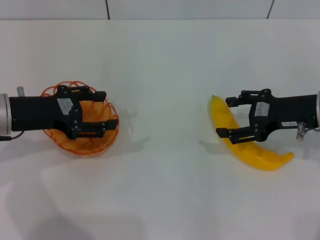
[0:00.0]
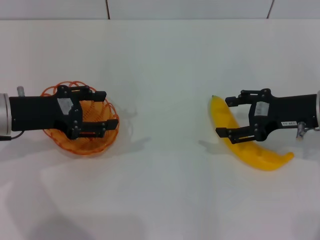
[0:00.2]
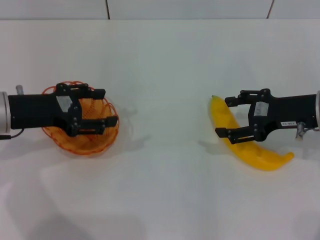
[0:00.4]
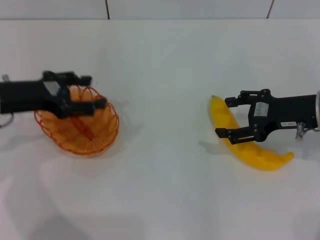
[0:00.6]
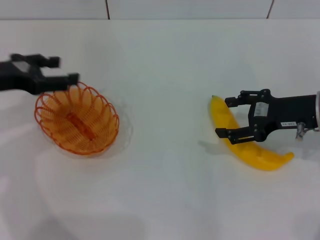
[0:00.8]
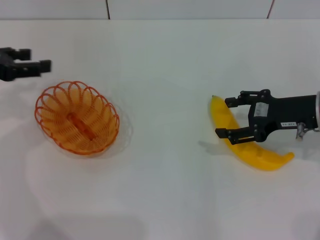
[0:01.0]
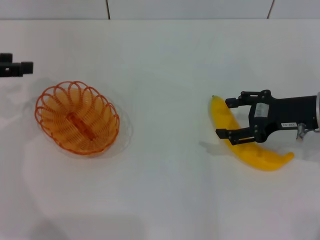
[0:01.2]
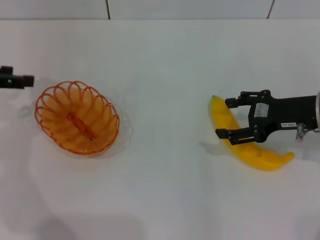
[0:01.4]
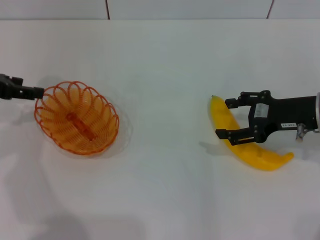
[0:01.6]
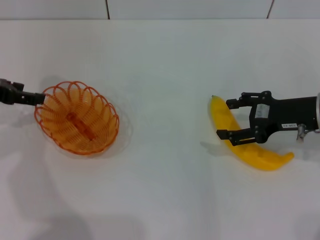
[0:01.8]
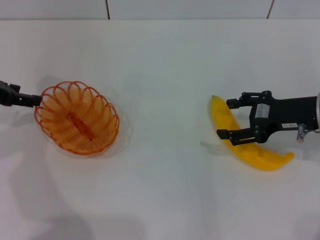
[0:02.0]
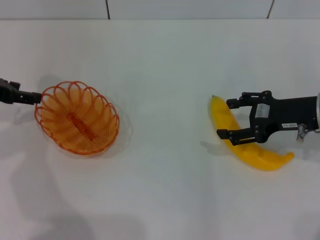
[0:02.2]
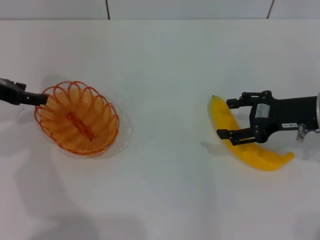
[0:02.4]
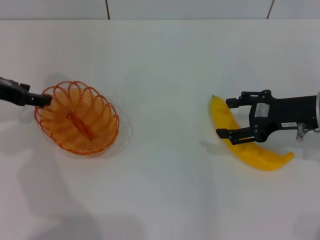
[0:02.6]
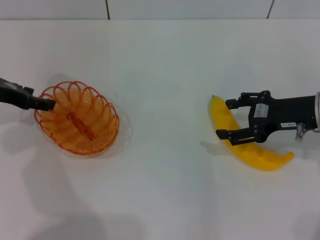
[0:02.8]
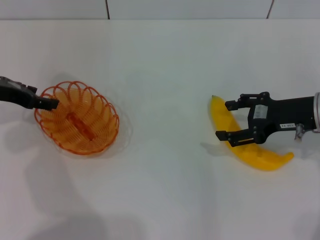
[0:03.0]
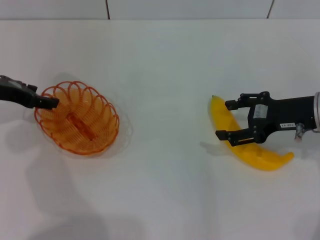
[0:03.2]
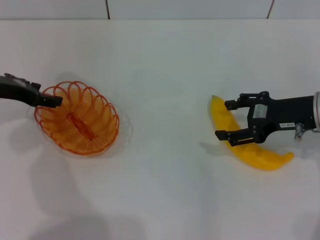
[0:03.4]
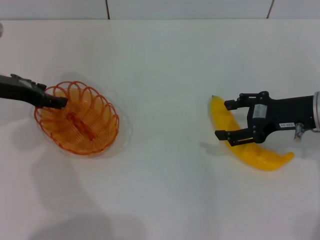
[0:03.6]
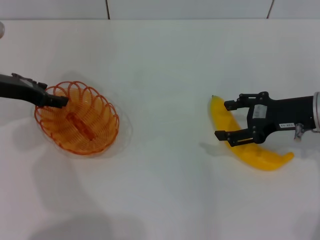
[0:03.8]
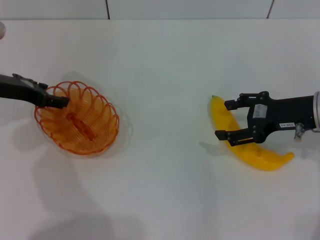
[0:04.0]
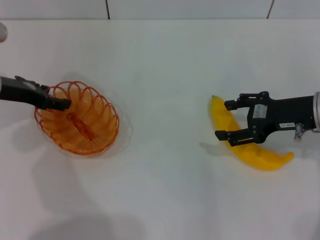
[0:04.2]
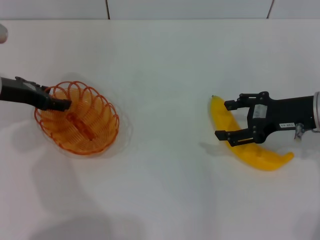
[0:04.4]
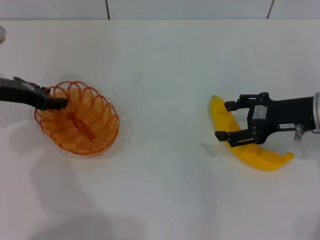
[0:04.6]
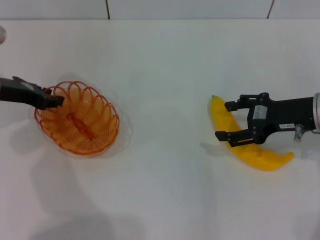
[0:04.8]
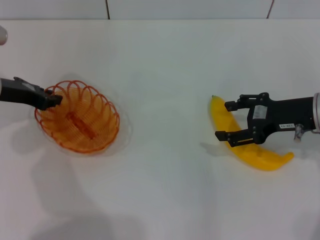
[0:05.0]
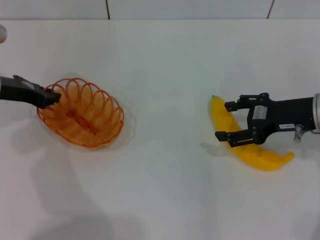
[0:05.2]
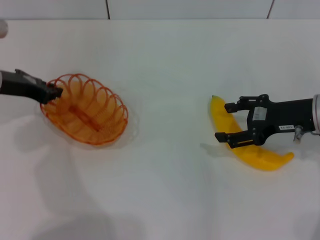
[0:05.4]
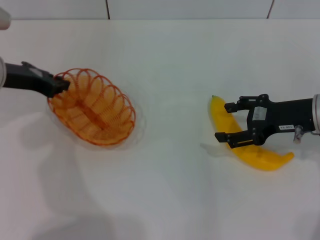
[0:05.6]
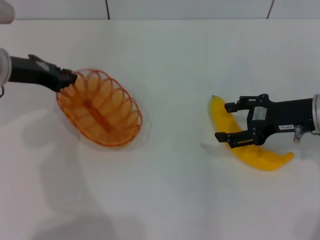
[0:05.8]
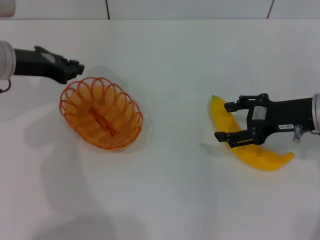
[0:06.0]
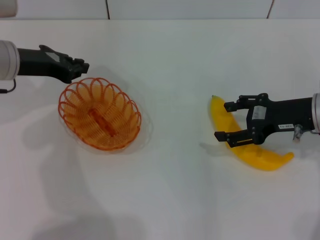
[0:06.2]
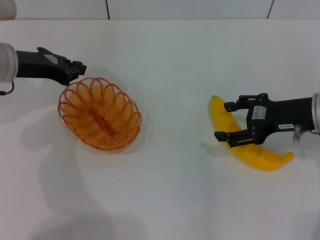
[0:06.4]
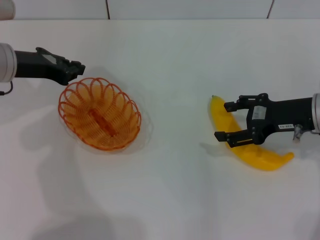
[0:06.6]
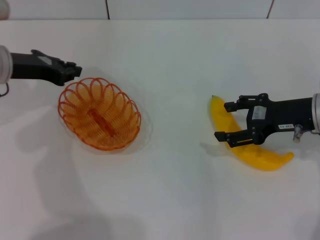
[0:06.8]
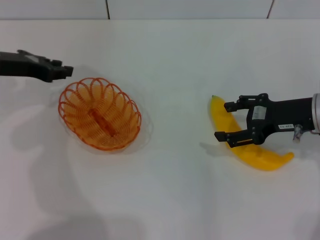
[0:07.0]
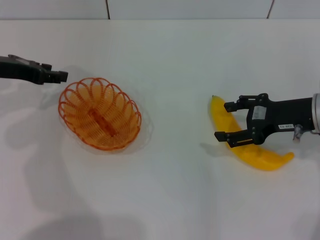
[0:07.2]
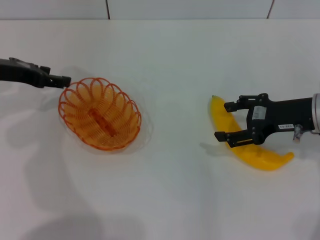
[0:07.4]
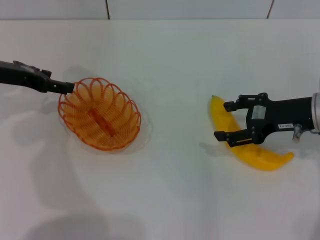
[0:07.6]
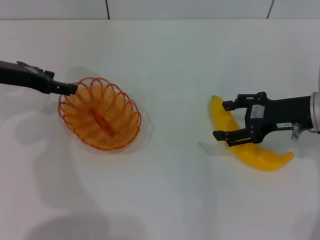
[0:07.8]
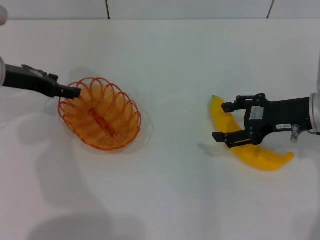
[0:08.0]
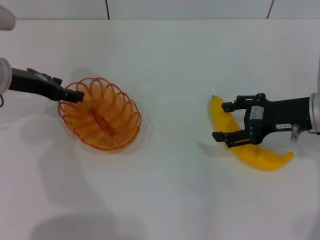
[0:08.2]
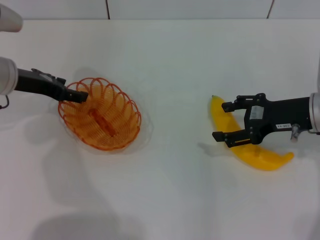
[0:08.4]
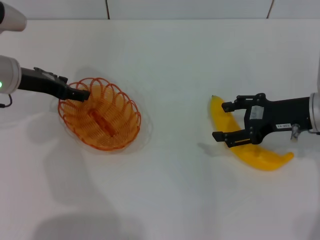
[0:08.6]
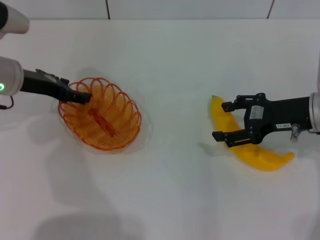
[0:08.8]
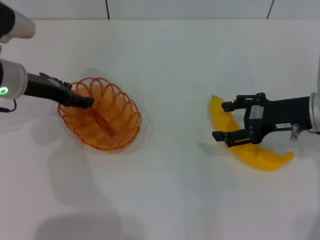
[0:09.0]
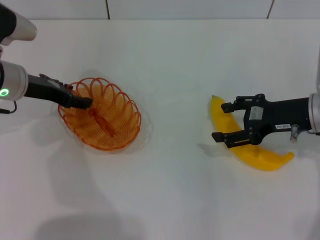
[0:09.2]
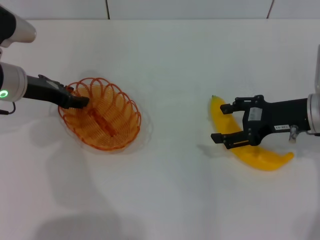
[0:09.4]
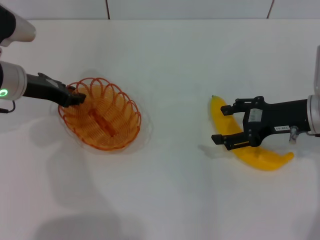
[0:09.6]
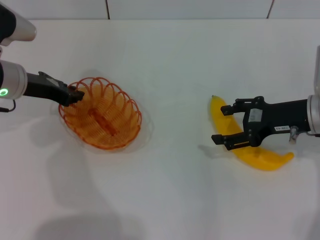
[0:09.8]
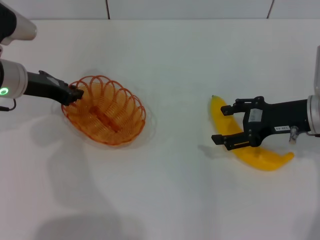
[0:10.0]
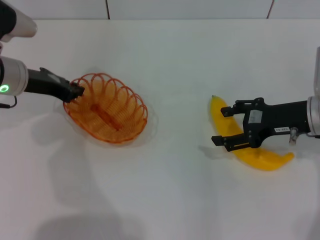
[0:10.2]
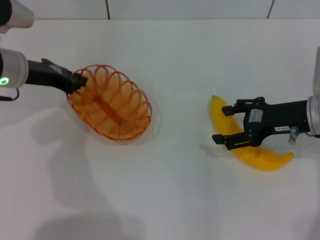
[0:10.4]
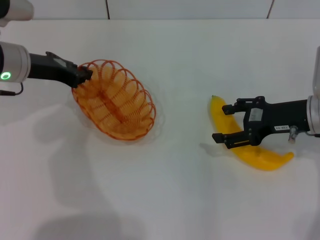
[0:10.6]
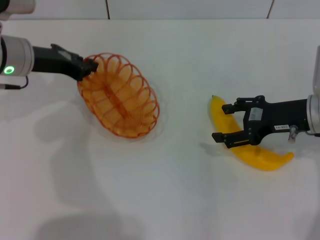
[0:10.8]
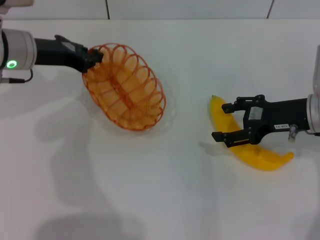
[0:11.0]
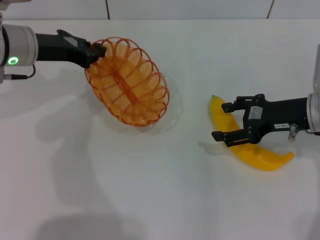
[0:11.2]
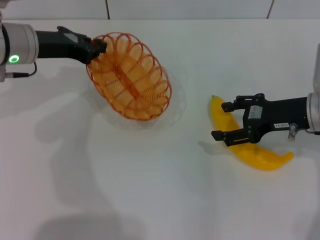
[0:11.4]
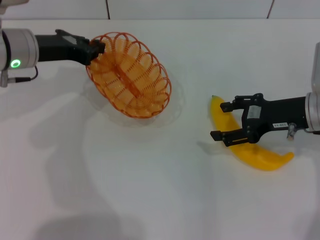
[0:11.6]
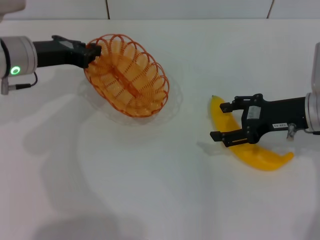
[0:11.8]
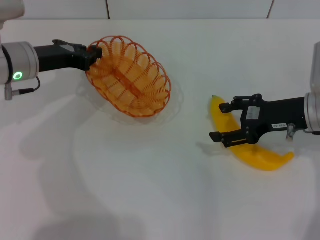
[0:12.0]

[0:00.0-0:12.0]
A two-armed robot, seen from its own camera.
0:00.0 to 0:01.6: The left gripper shifts about 10 cm to the left and upward.
0:01.6 to 0:03.0: There are only small adjustments of the grippers.
0:03.0 to 0:04.4: The grippers make only small movements.
0:04.4 to 0:06.0: The left gripper closes.
0:06.0 to 0:07.6: The left gripper opens its fingers.
0:07.6 to 0:09.0: The grippers make only small movements.
0:09.0 to 0:10.4: The left gripper closes up.
0:10.4 to 0:12.0: There are only small adjustments of the grippers.

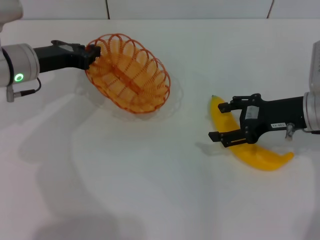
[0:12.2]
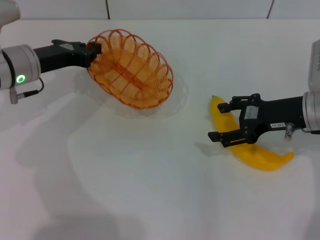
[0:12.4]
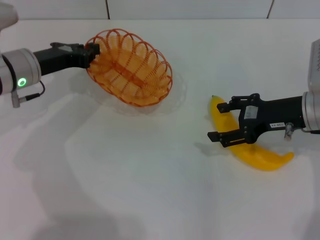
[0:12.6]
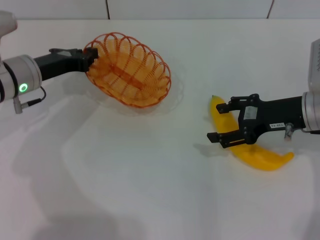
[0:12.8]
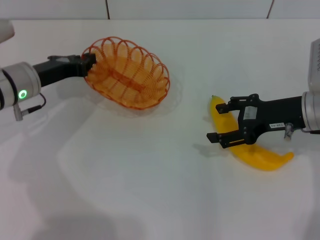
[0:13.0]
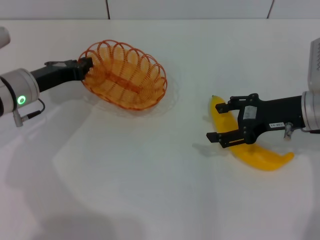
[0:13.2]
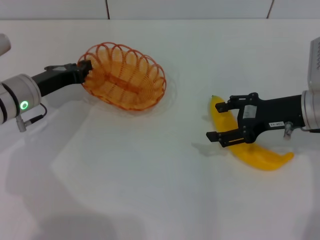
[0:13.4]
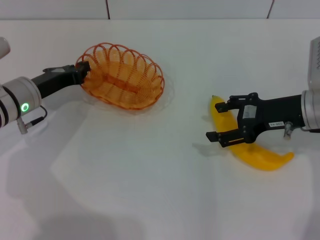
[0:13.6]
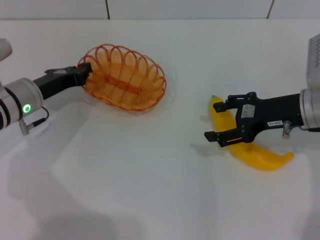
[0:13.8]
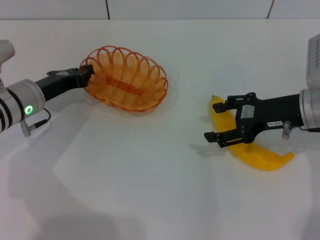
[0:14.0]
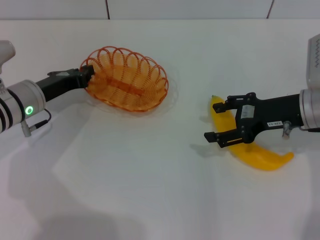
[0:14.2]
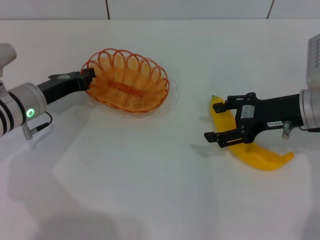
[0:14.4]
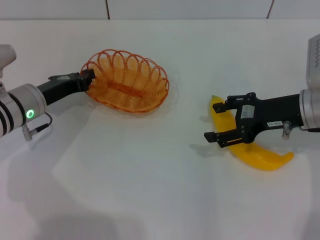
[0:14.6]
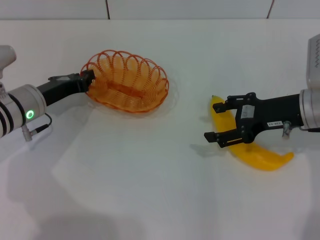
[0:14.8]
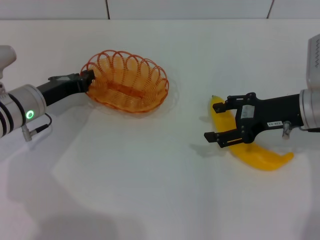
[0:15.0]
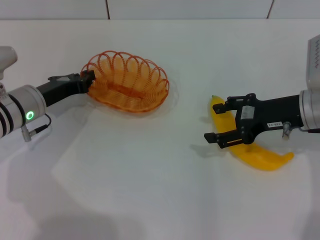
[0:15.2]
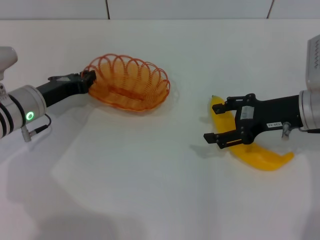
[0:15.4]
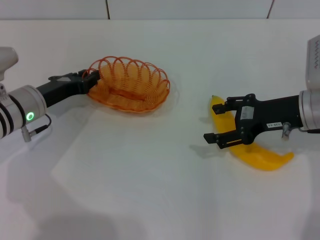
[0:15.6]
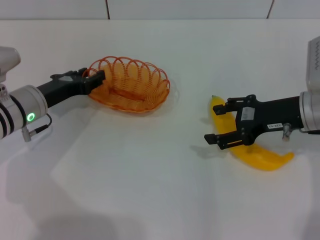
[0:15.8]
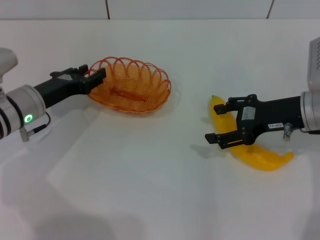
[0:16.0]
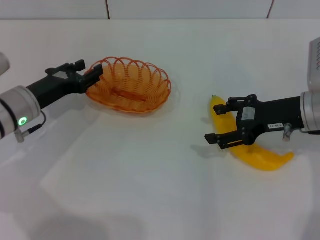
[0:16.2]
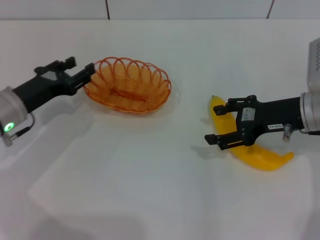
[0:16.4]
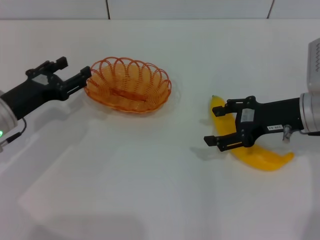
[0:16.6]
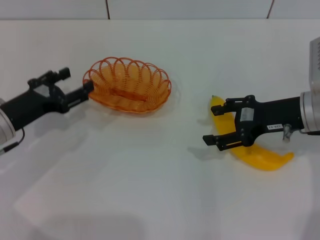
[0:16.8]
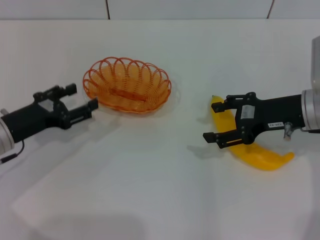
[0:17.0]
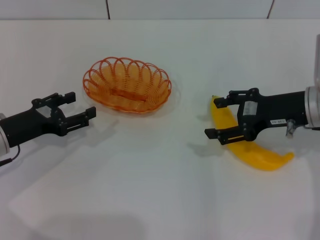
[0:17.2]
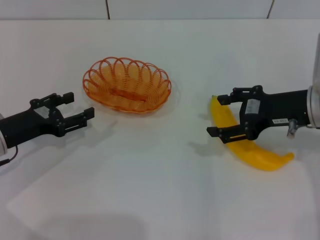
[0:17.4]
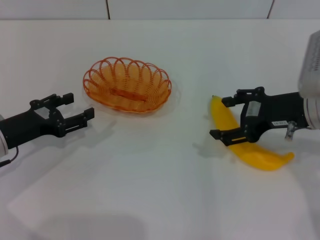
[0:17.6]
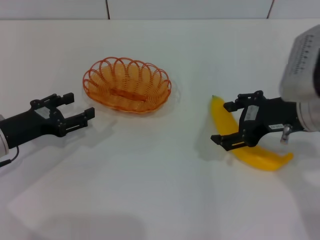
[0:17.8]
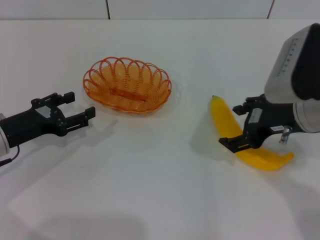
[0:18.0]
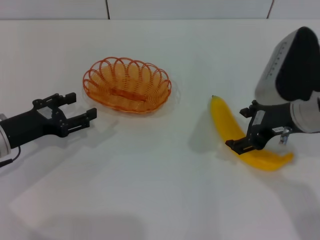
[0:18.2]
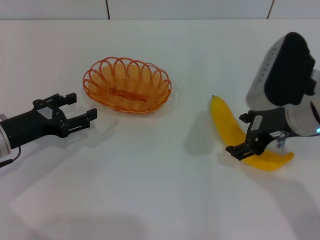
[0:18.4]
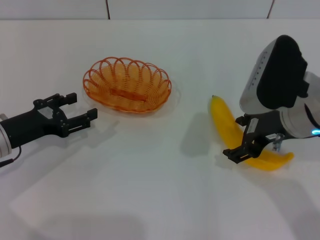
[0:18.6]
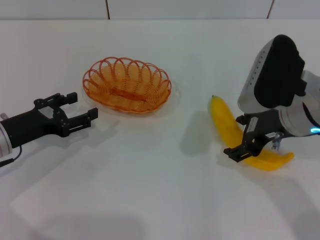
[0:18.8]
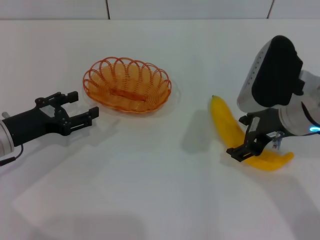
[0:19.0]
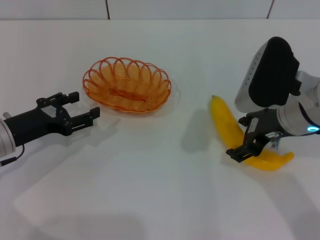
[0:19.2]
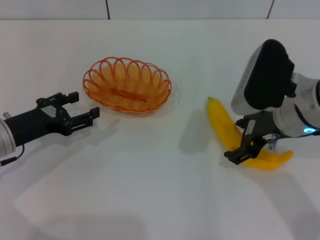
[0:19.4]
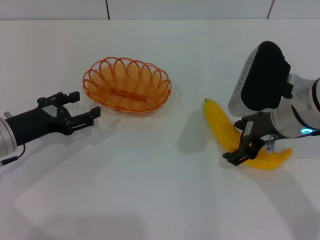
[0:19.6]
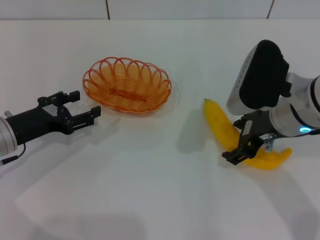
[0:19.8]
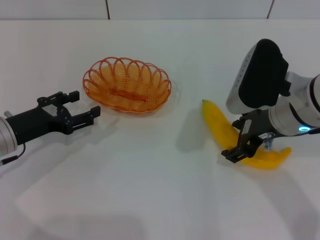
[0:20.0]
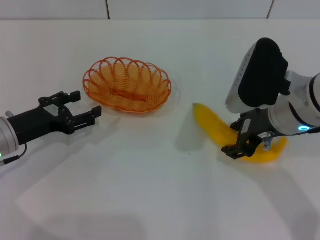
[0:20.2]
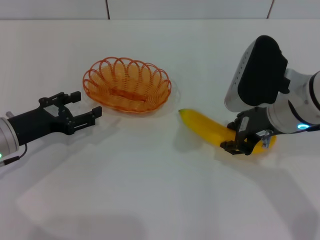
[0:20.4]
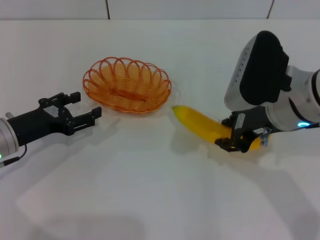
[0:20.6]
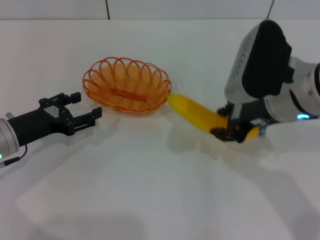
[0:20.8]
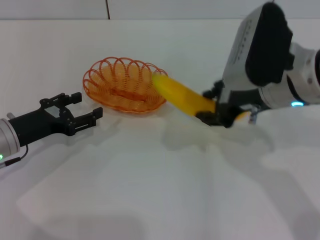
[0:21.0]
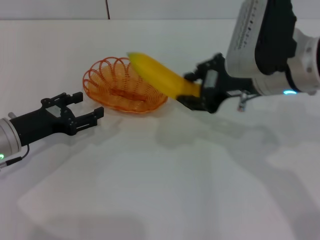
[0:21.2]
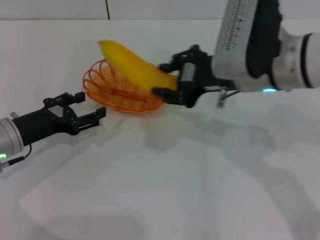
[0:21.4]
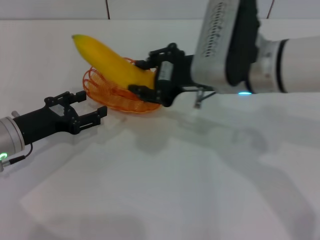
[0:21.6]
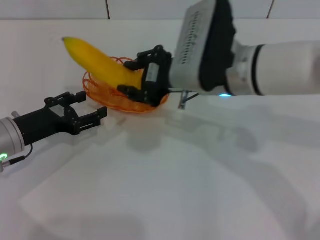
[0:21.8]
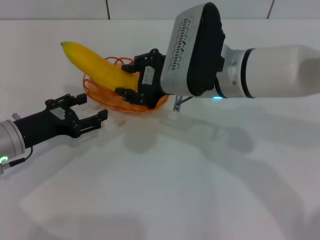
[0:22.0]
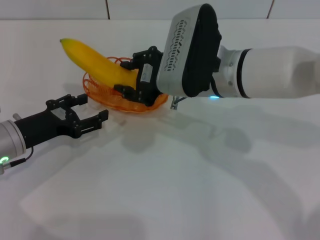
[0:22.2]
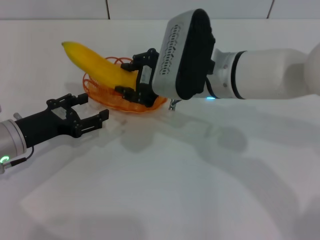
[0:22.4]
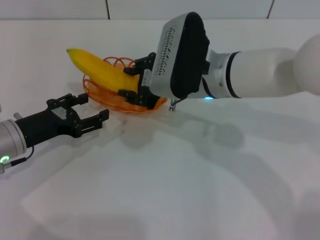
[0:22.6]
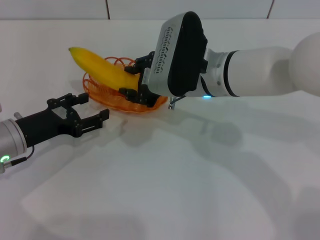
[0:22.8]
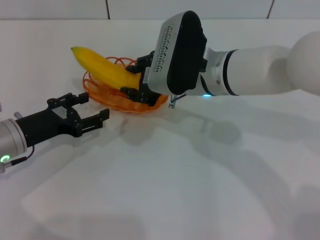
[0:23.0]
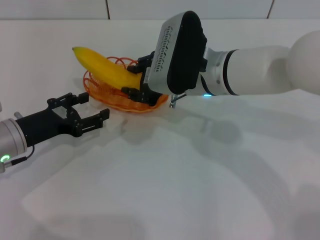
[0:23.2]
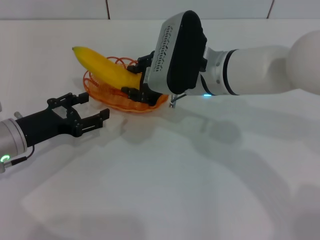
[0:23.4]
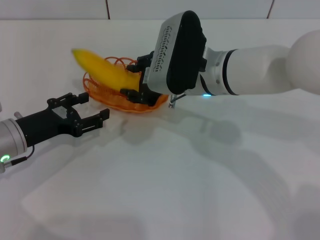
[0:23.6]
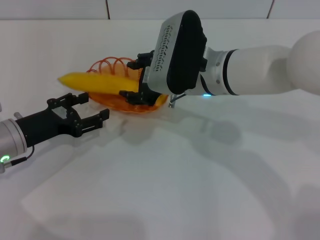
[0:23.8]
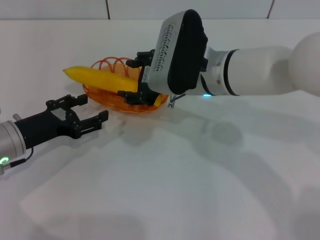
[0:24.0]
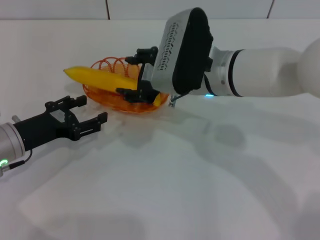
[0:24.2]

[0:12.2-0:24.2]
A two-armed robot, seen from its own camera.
Step, 0:12.2 to 0:17.6: Place the basket in the center of view with the left gripper.
Step, 0:17.8 to 0:20.8: Pick up the banana with the right gripper.
0:12.2 to 0:13.8: The left gripper heads downward, covering approximately 5 cm.
0:13.8 to 0:15.2: Both grippers stay put.
0:15.2 to 0:16.6: The left gripper changes place by roughly 5 cm, and opens its fingers.
0:16.6 to 0:18.2: The right gripper moves approximately 5 cm.
0:18.2 to 0:19.8: The grippers stay close to where they were, moving slightly.
0:19.8 to 0:21.2: The right gripper changes place by approximately 5 cm, and closes up.
0:21.2 to 0:22.6: The right gripper is displaced to the left and downward by some 10 cm.
0:22.6 to 0:24.2: The right gripper opens up.
